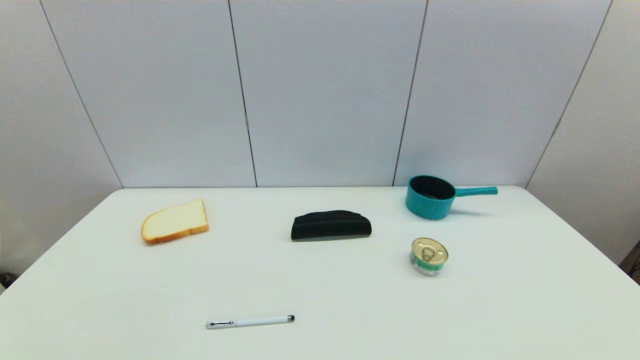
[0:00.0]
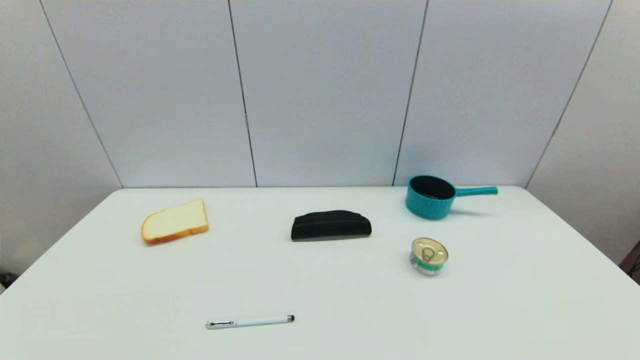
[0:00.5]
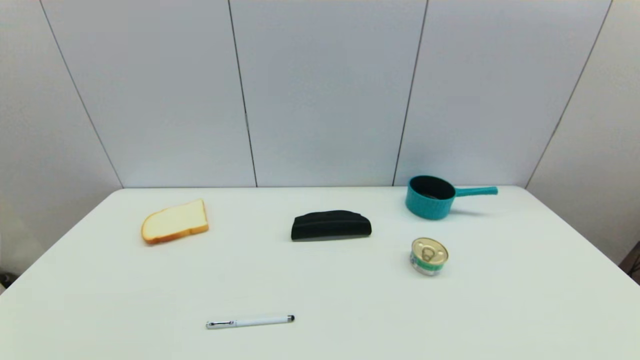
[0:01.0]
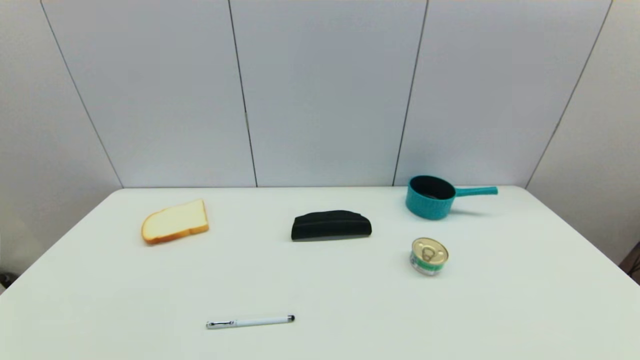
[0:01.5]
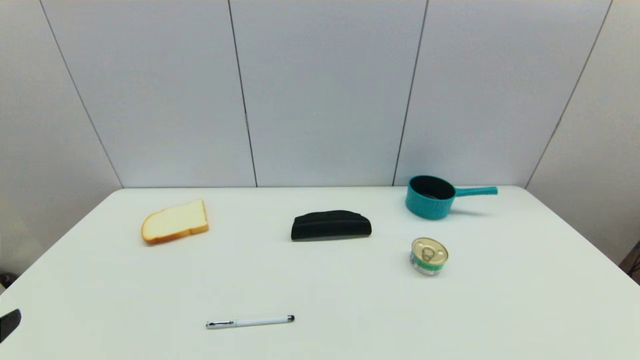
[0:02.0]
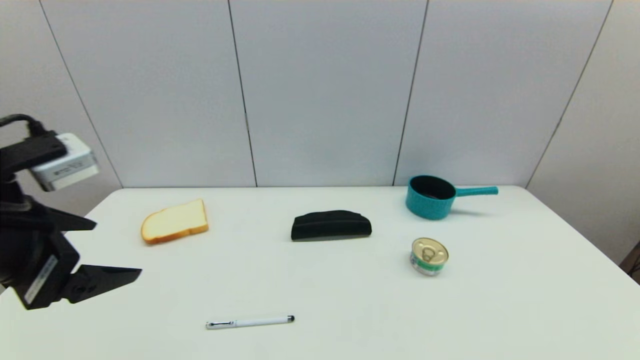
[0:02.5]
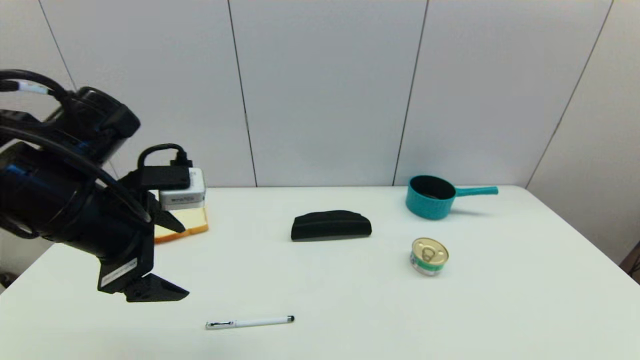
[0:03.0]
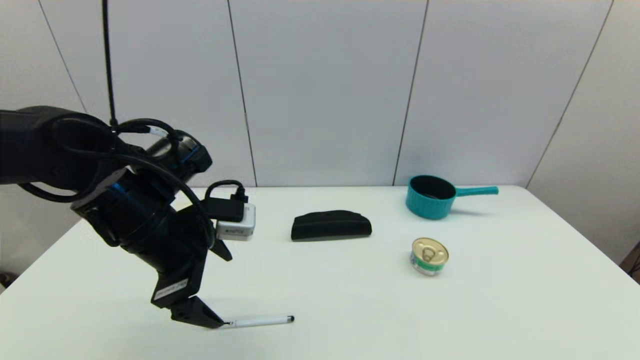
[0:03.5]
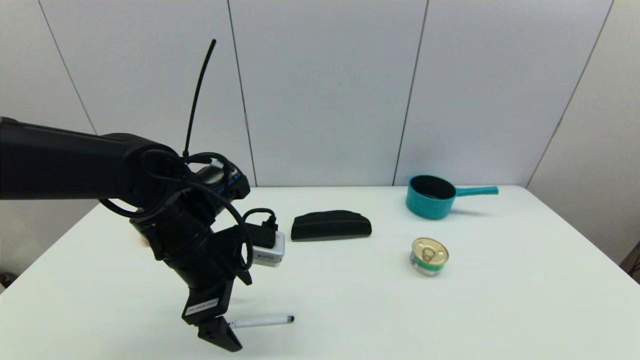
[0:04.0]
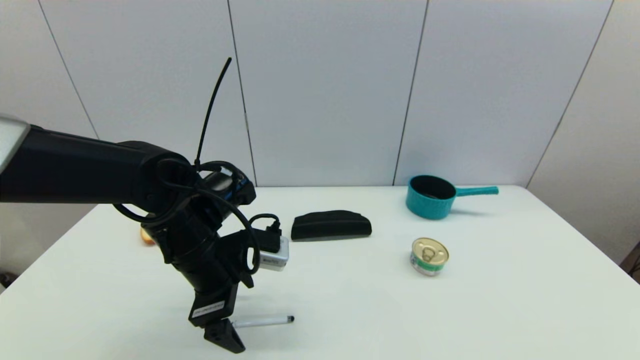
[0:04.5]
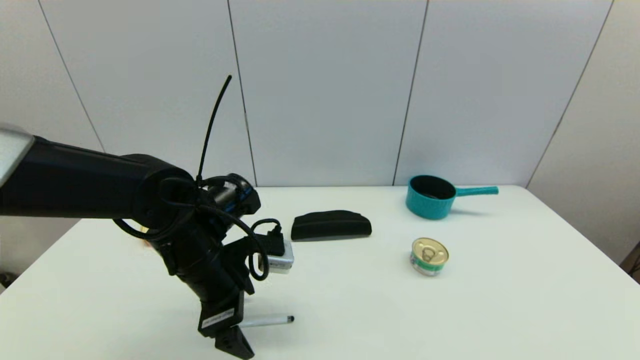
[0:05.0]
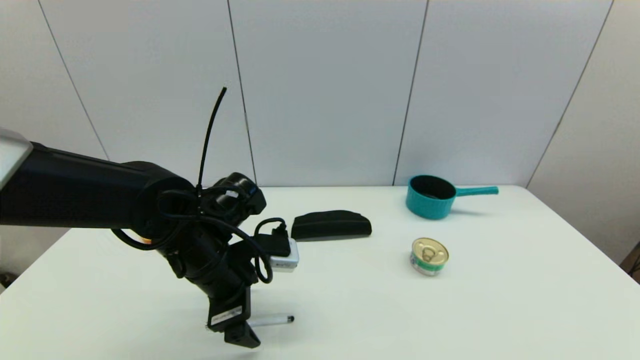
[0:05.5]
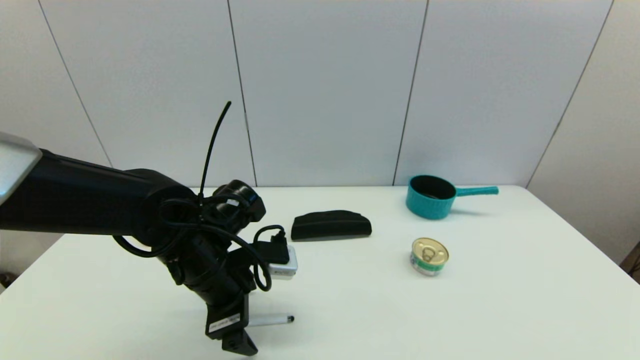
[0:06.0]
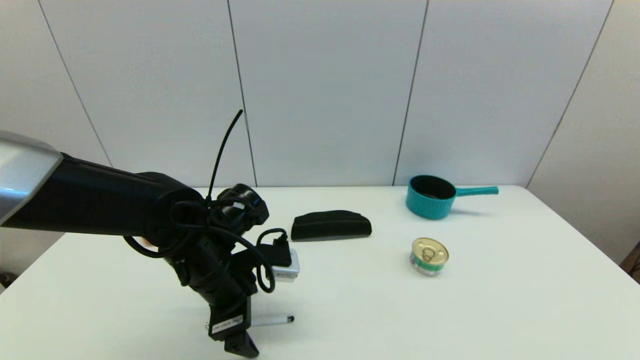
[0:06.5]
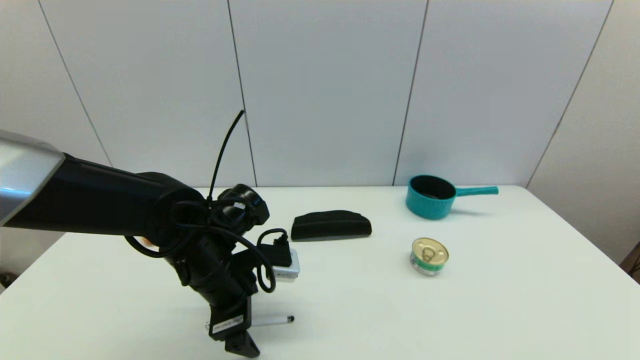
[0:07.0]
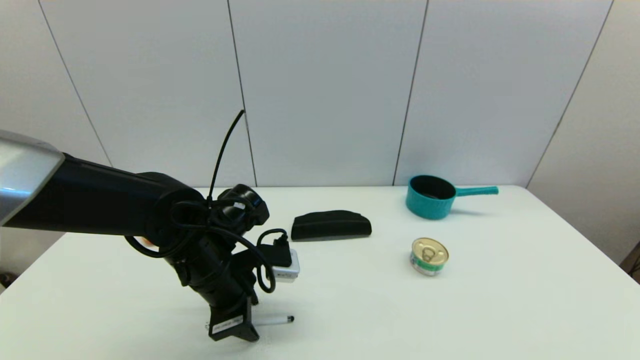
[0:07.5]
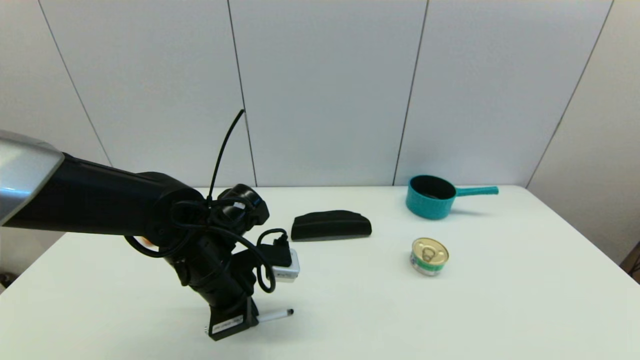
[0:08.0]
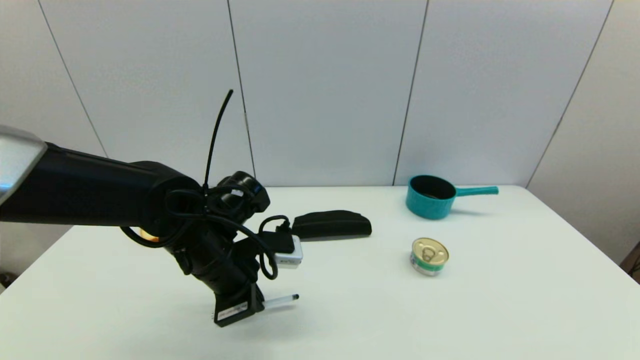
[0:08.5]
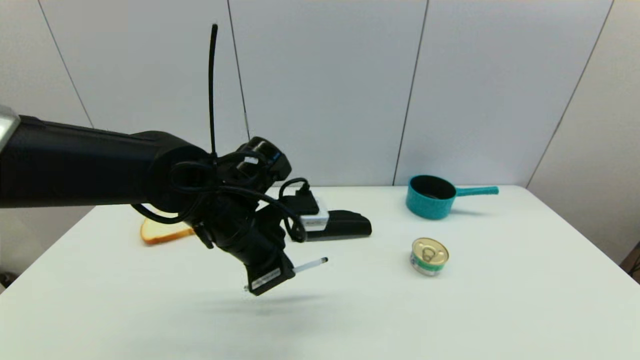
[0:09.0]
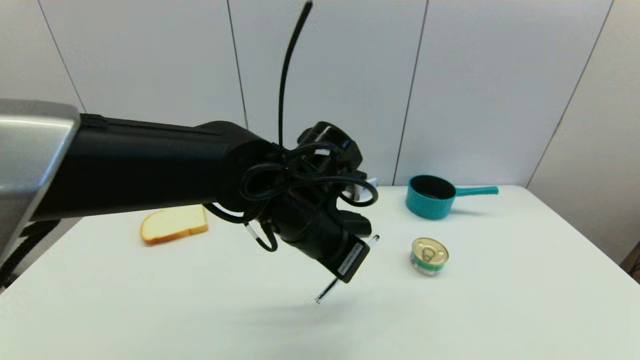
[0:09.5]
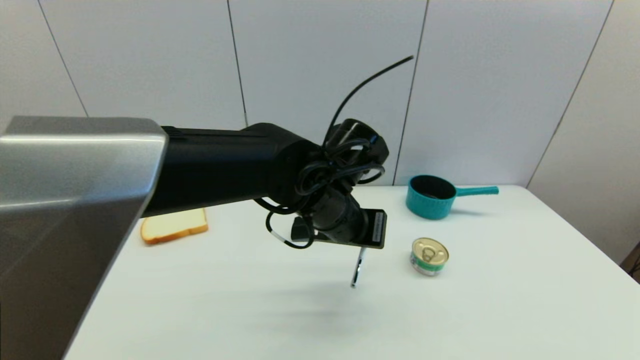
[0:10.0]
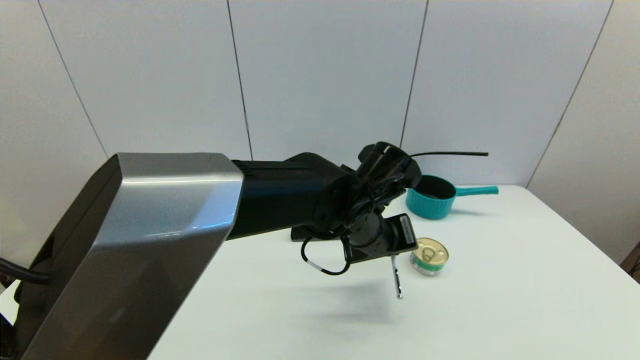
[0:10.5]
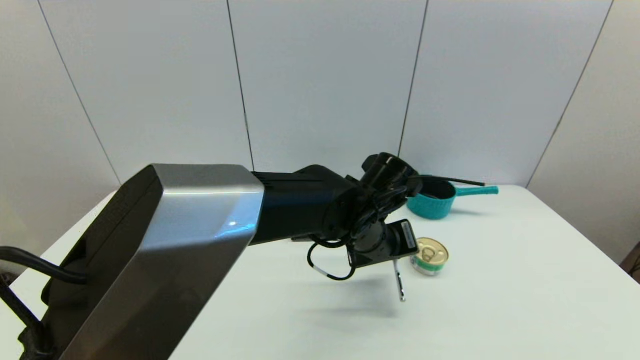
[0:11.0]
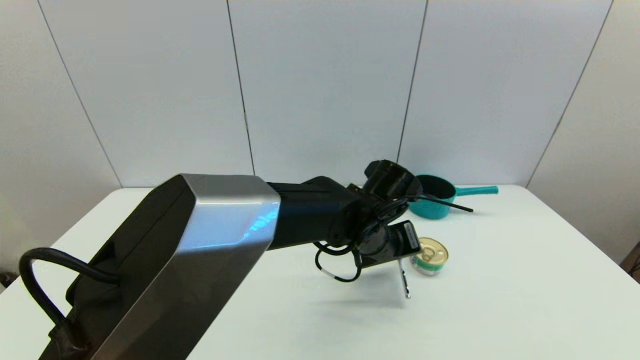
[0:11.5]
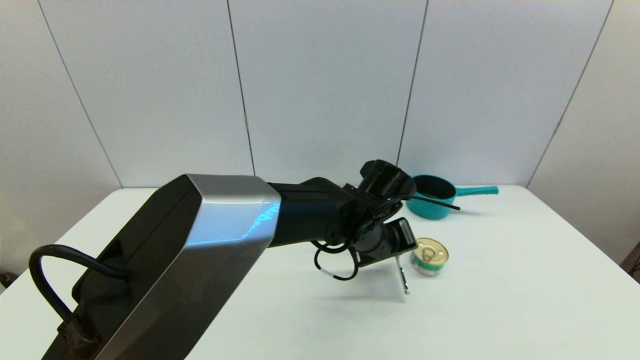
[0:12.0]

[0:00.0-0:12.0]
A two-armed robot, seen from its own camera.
Task of the whole recording: put the pen in the designated position.
Step, 0:02.0 to 0:08.0: Grasp the sign pen with left gripper.
0:02.0 to 0:04.0: The left gripper moves forward and to the right, about 30 cm.
0:04.0 to 0:06.0: The grippers stay close to where they were, moving slightly.
0:06.0 to 0:08.0: The left gripper closes its fingers.
0:08.0 to 0:10.0: The left gripper moves to the right and upward, about 15 cm.
0:10.0 to 0:12.0: The left gripper shifts about 10 cm downward and to the right.

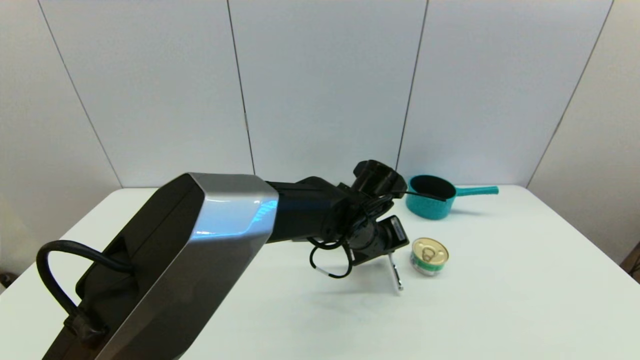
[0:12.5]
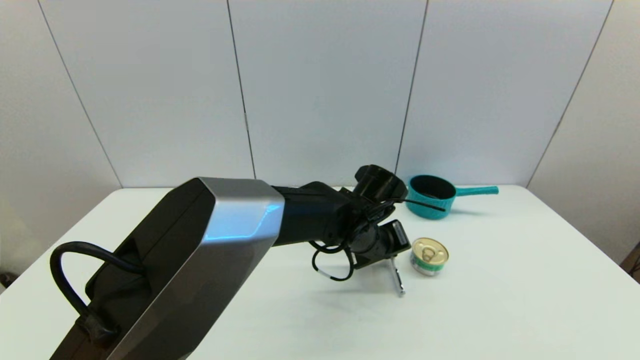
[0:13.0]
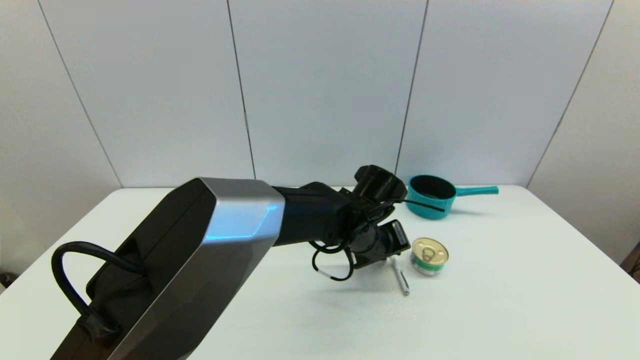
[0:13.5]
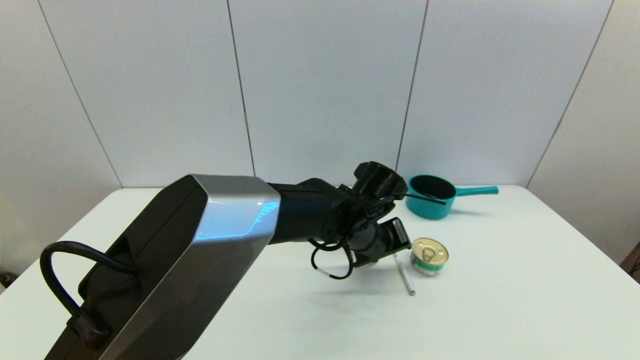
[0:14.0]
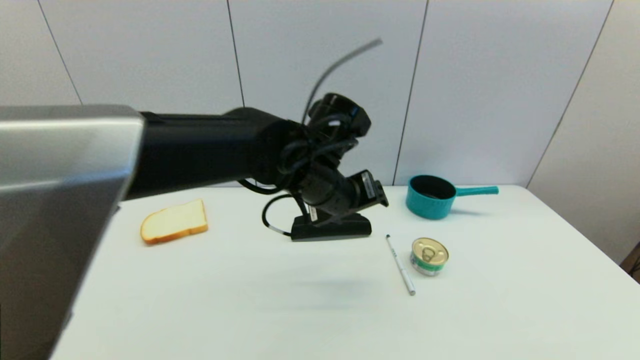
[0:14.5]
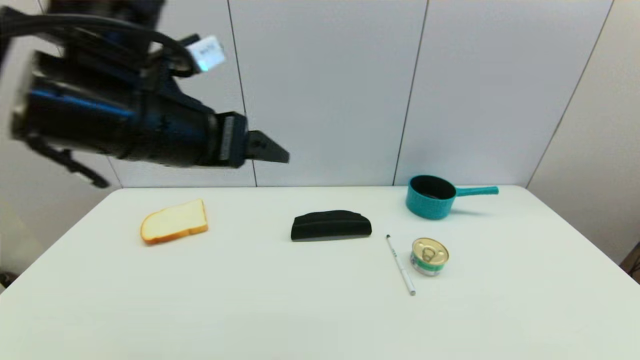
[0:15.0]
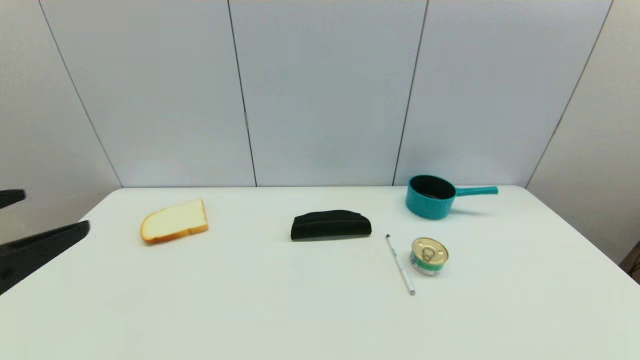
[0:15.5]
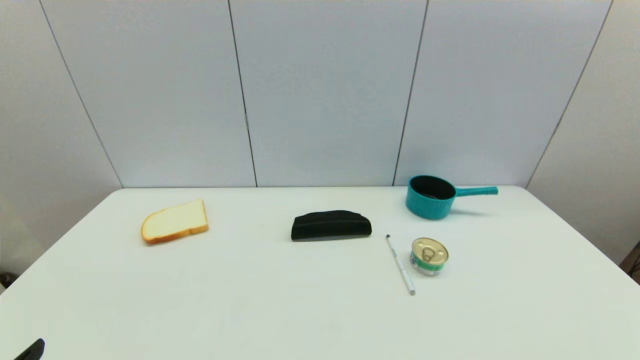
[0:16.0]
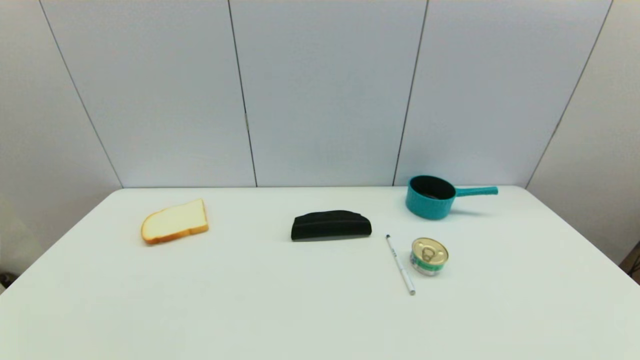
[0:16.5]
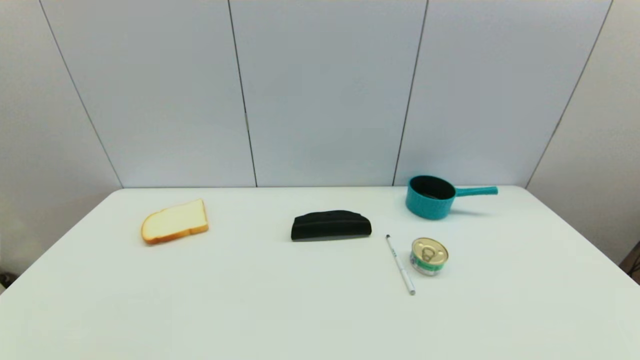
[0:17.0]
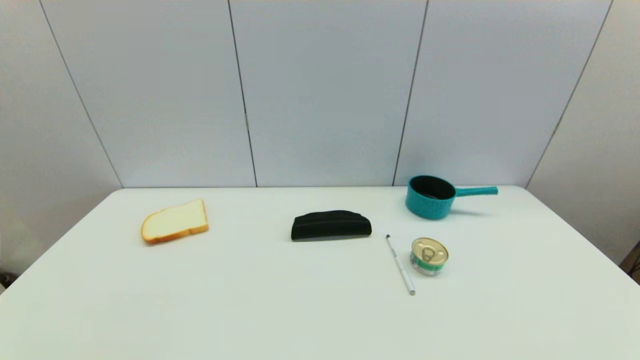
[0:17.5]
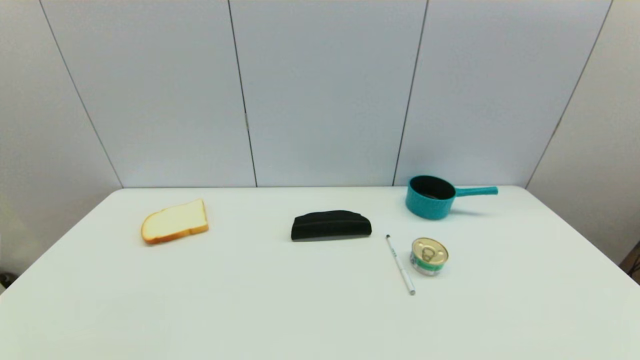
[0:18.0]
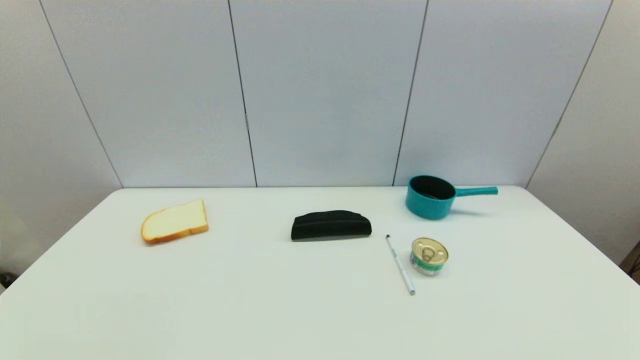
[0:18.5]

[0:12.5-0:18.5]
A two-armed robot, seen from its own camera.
Task of the whole recording: put the pen in the designated position.
0:12.5 to 0:14.5: The left gripper is displaced upward and to the left by approximately 15 cm, and opens its fingers.
0:14.5 to 0:16.5: The left gripper is displaced backward, to the left and downward by approximately 40 cm.
